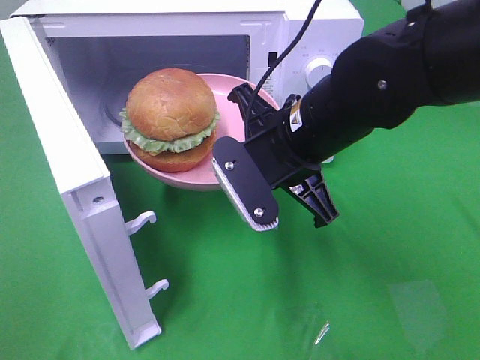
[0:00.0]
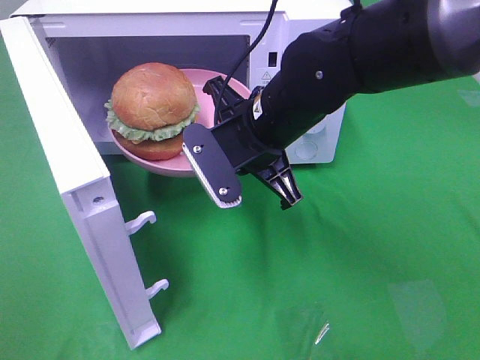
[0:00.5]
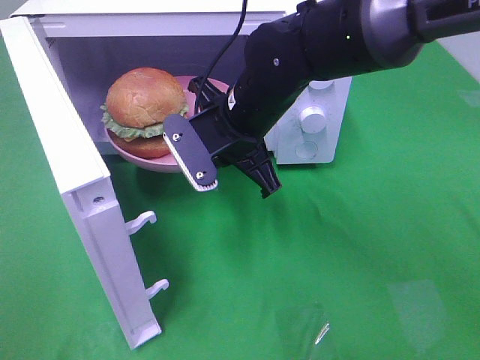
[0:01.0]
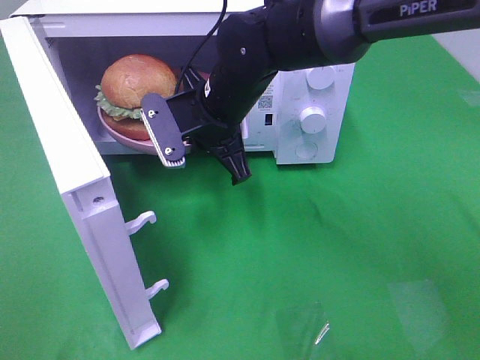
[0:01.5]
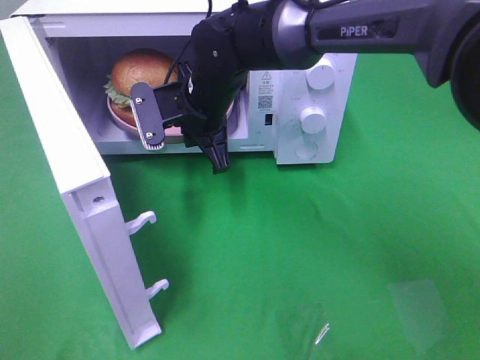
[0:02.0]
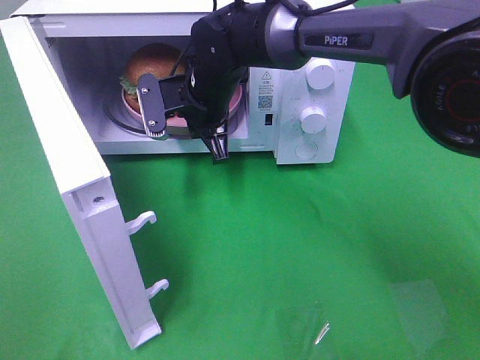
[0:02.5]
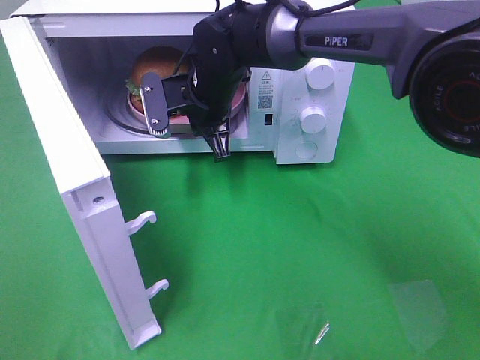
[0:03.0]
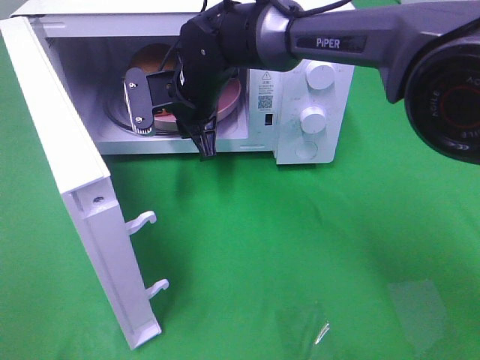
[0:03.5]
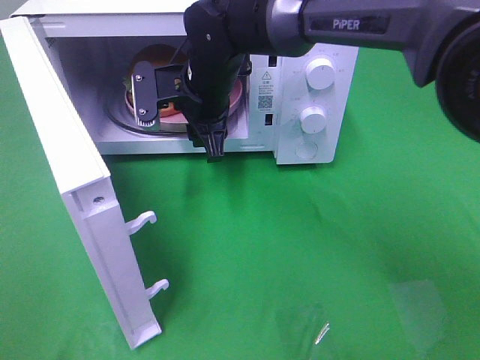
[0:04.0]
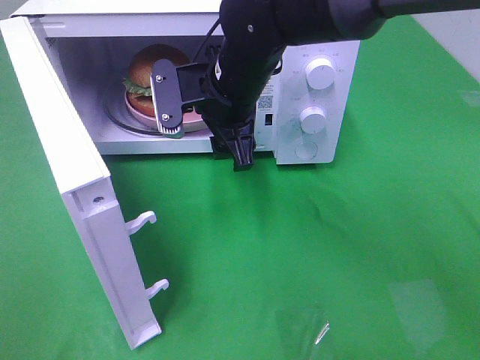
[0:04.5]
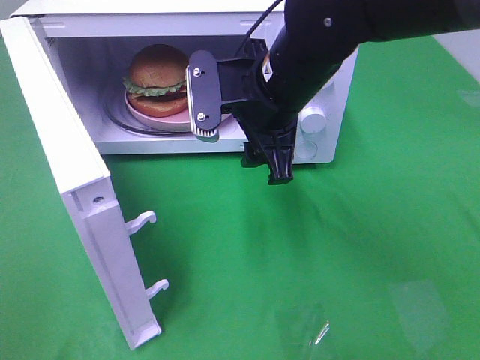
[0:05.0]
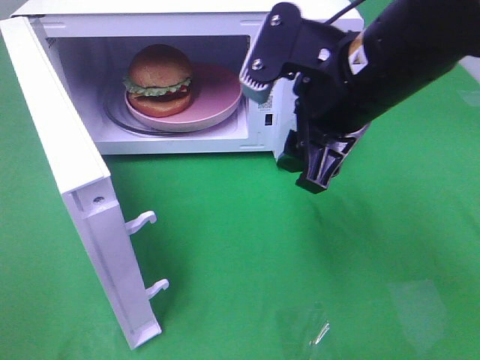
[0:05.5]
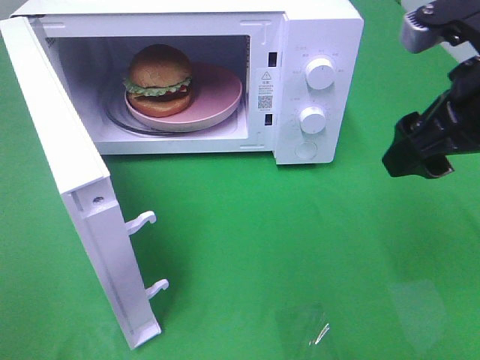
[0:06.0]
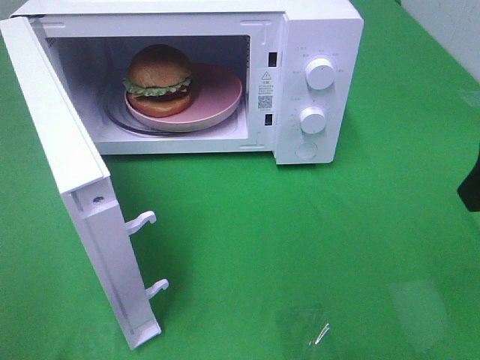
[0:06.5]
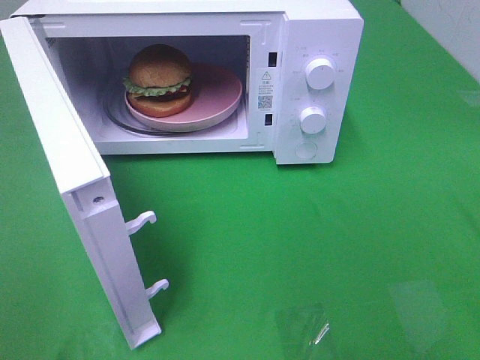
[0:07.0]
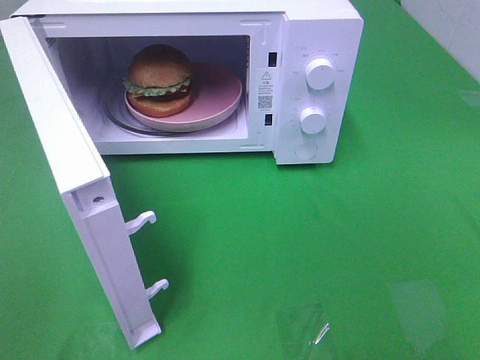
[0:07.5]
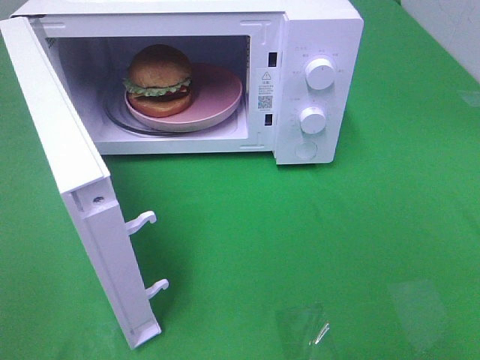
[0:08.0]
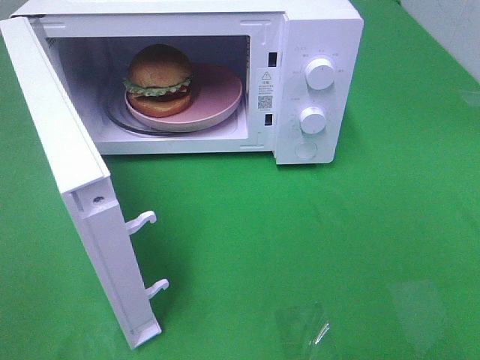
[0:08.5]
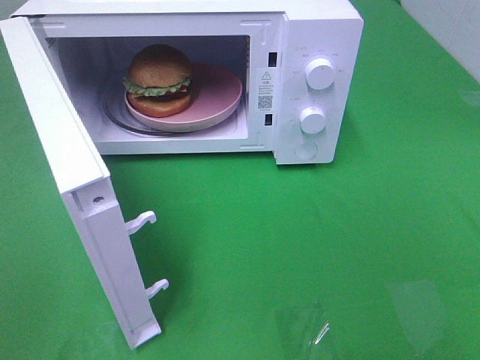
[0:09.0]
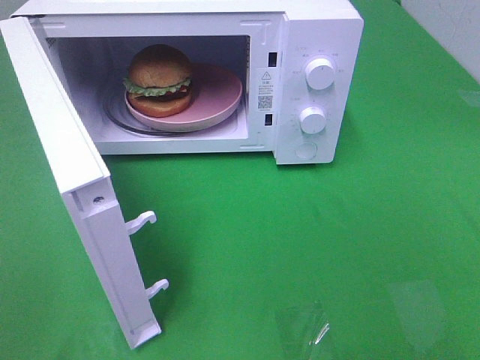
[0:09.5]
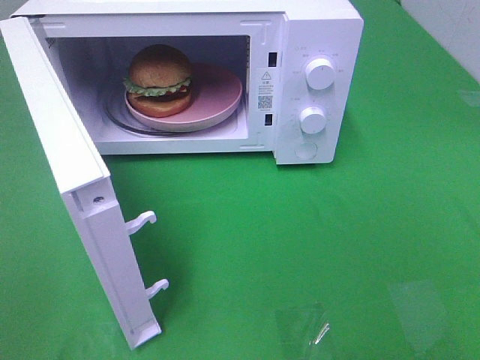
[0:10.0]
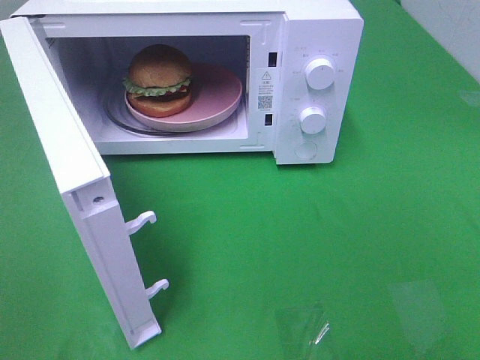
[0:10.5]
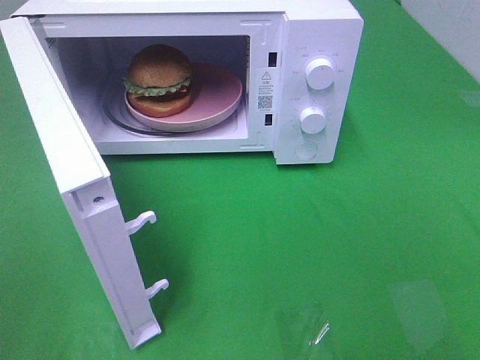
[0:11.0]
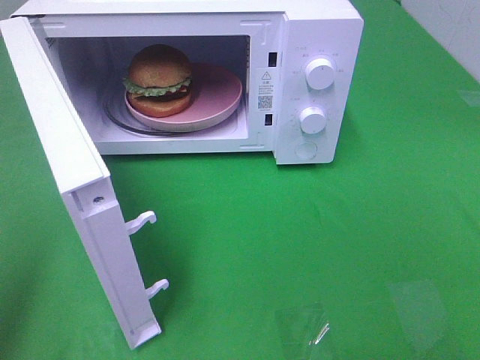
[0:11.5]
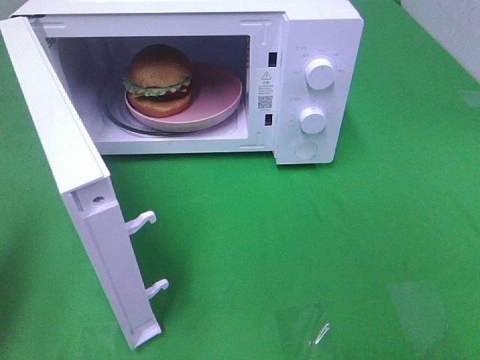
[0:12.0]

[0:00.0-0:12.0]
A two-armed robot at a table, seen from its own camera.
Task of the whole recording: Heat the burger.
Step, 0.0 to 3.0 s: Right hand: place the plate in the microwave.
0.0 to 2.0 s: The right gripper moves forward and to the left, about 15 cm.
2.0 to 4.0 s: The right gripper opens up.
4.0 to 6.0 s: The right gripper is displaced to the right, backward and upward by approximately 30 cm.
6.0 to 8.0 s: The right gripper moves backward, roughly 20 cm.
10.0 to 12.0 s: The left gripper heads forward, covering approximately 15 cm, and closes its fingers.

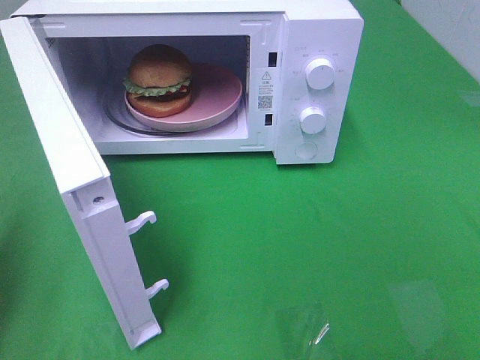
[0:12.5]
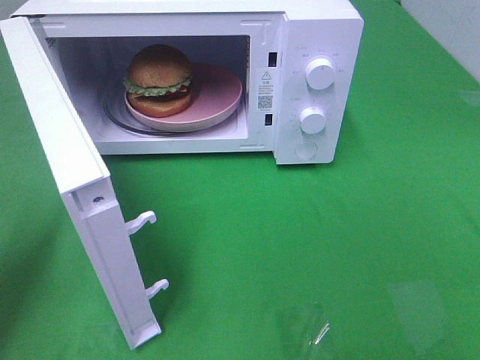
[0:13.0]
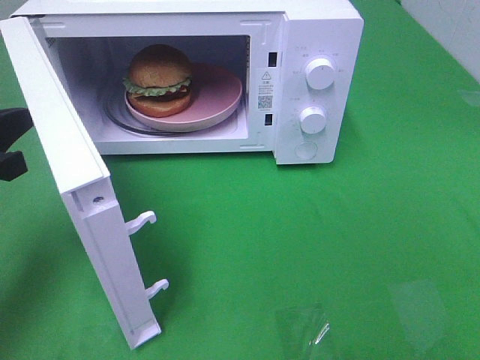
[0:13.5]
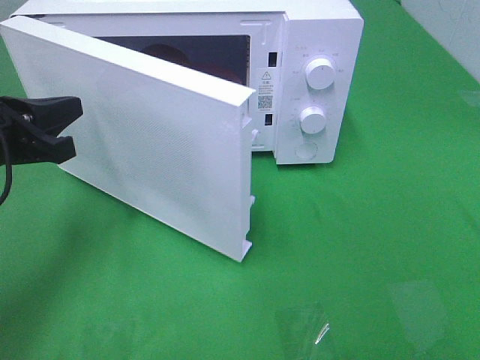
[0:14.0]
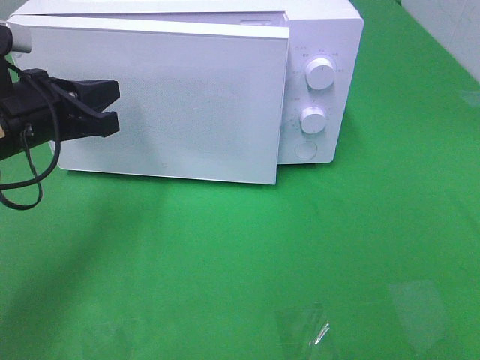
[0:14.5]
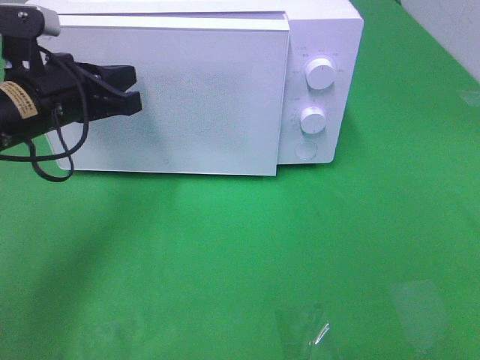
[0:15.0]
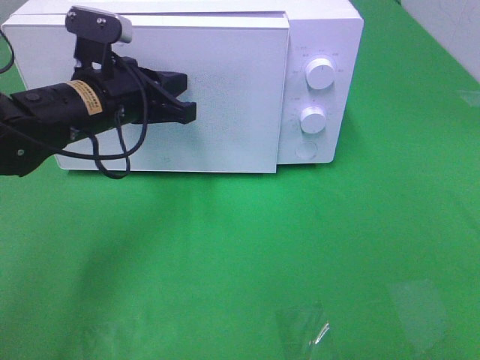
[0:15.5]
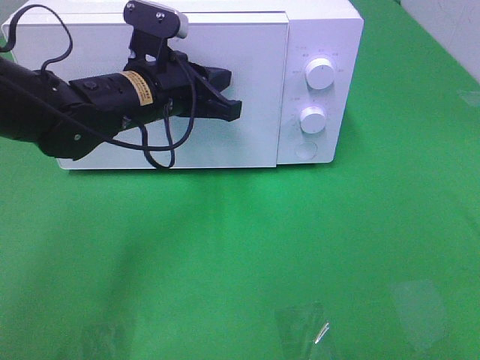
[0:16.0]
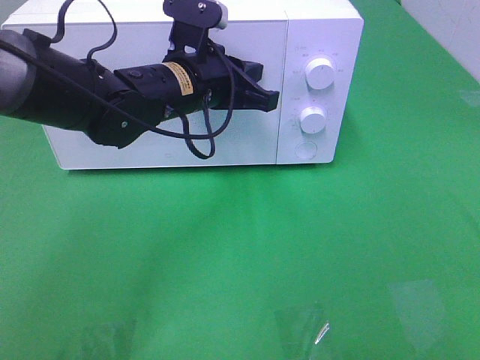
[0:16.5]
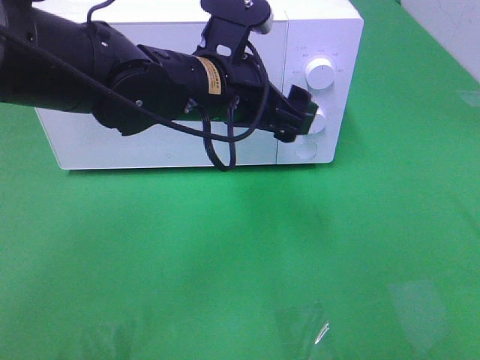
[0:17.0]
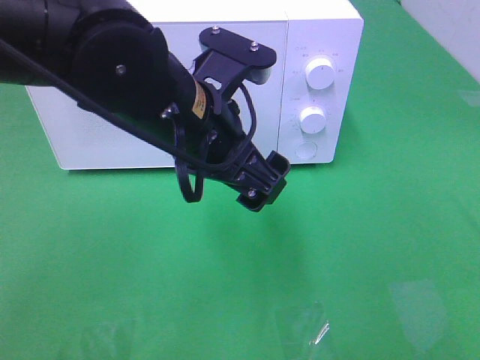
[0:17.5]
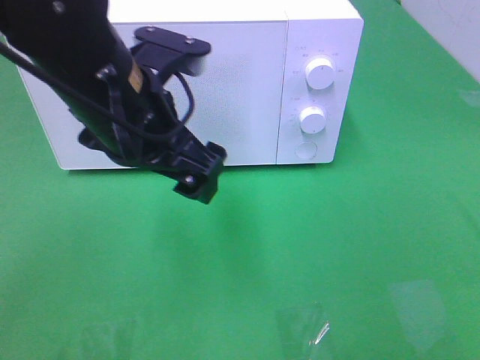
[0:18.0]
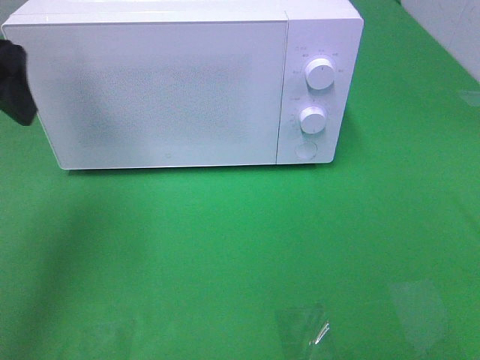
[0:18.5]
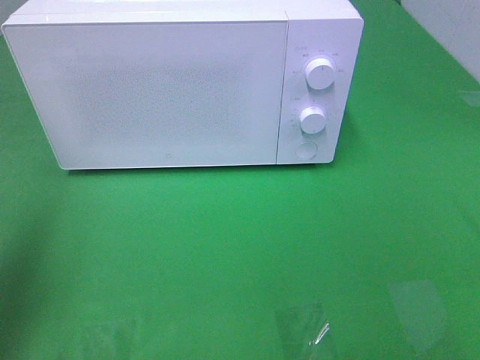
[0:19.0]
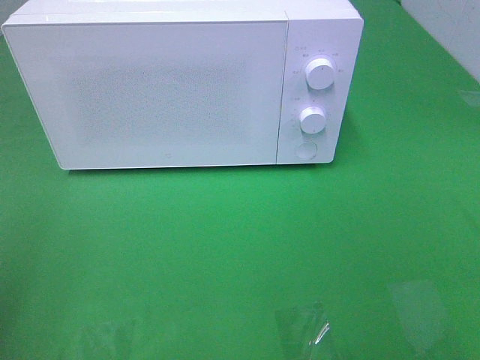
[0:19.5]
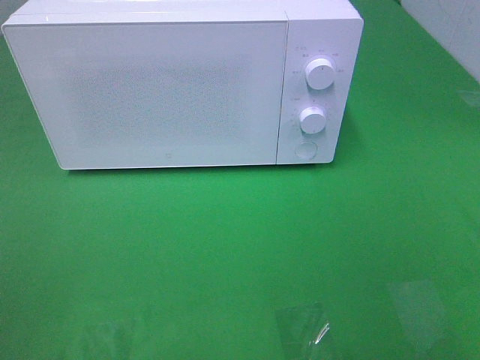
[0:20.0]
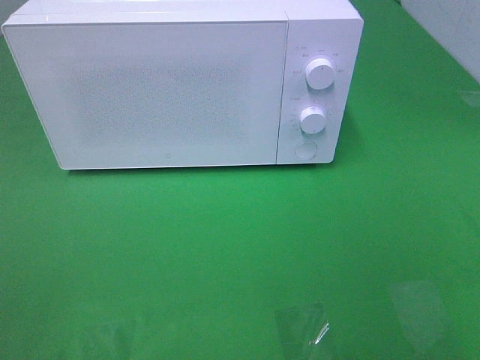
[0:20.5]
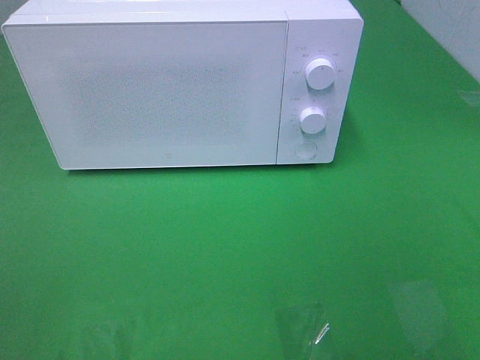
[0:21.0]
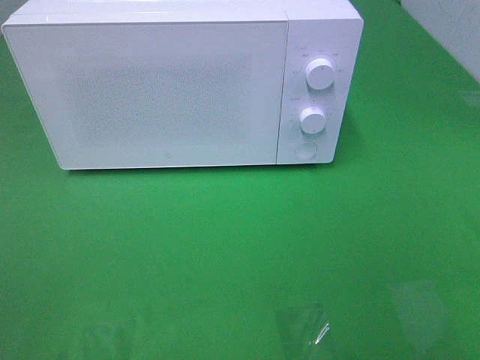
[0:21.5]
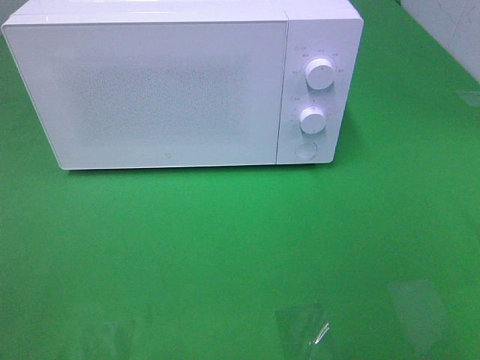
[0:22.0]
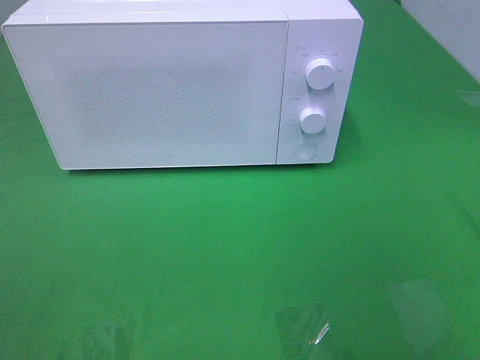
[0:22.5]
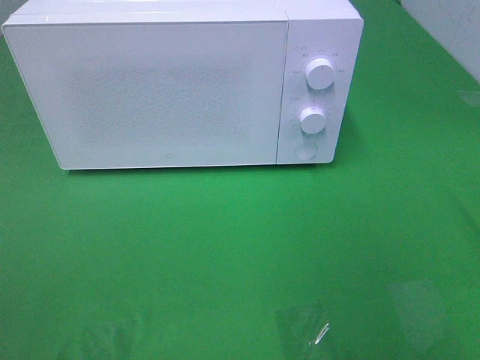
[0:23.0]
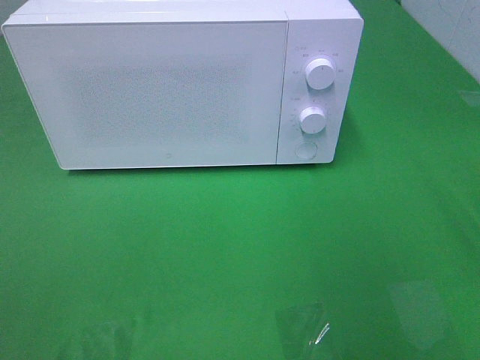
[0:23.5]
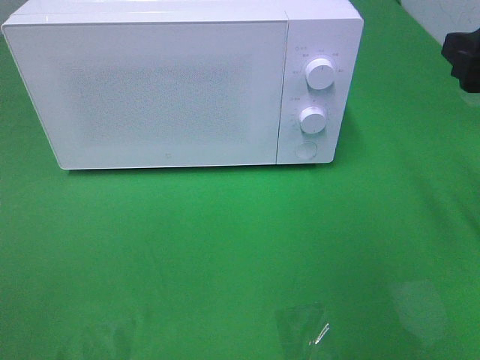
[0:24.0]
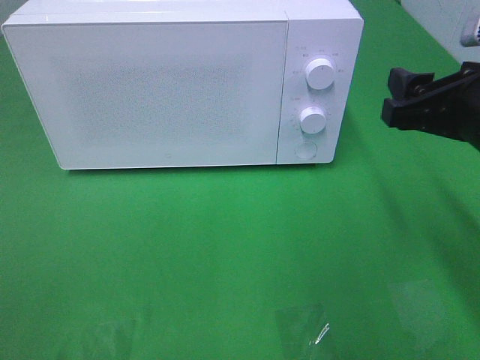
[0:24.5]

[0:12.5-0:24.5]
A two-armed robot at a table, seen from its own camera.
Task of the whole recording: Heat the burger.
Step, 12.5 to 16.5 s: Left hand: close the microwave door.
12.5 to 14.5 s: The left gripper shifts roughly 15 cm to the right and forward.
14.5 to 16.5 s: The left gripper goes approximately 15 cm to the right.
16.5 to 18.5 s: The left gripper is displaced to the left, upward and backward by approximately 25 cm, and opens its fingers.
18.5 to 20.5 s: The left gripper is displaced backward by about 30 cm.
22.5 to 24.5 s: The right gripper travels forward, downward and to the left by approximately 20 cm.

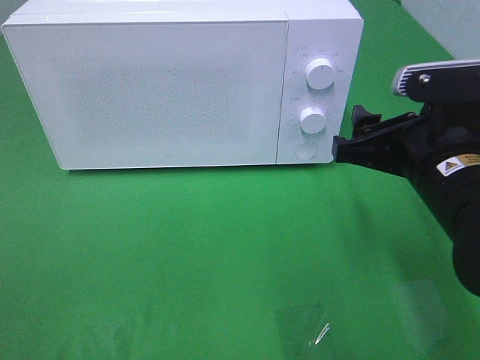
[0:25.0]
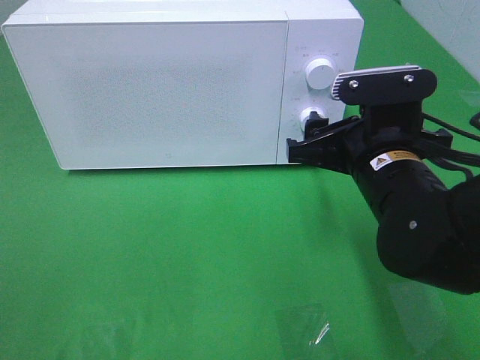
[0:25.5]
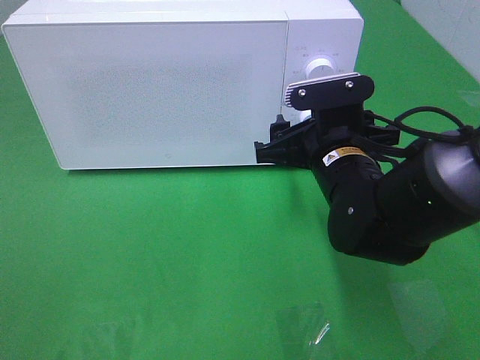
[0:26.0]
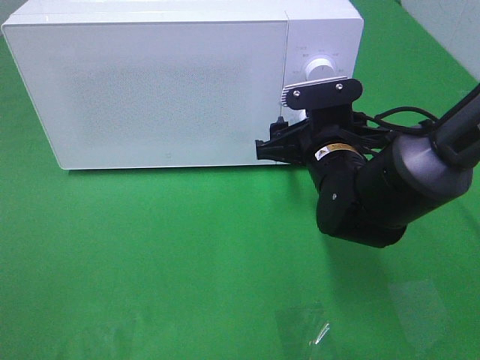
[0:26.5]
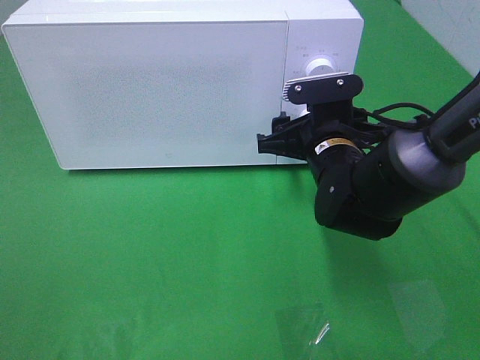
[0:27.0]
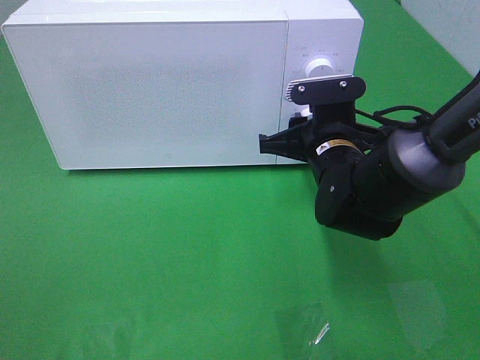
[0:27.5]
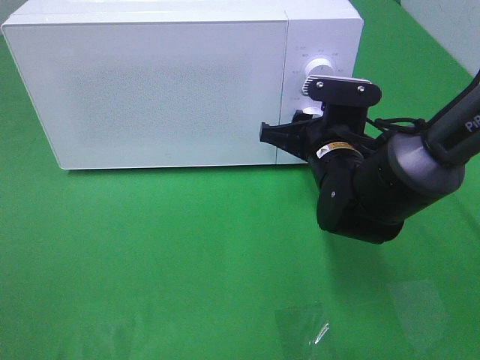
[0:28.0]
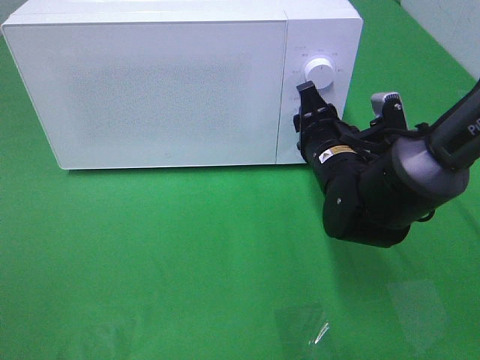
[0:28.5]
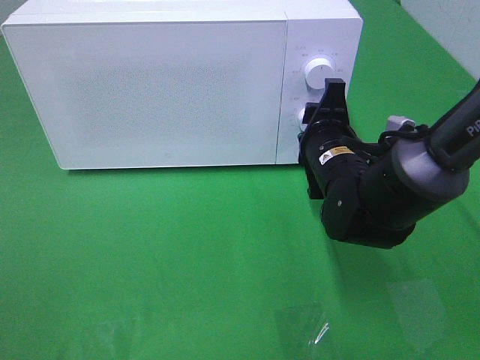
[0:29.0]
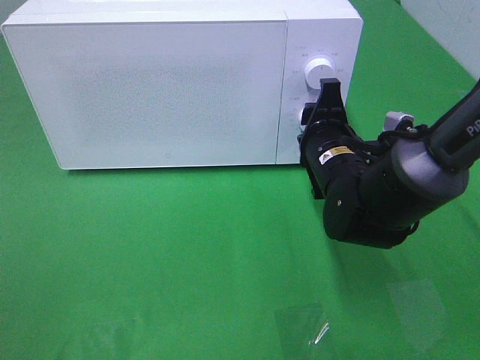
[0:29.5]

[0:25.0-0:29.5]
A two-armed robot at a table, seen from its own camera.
Task of the whole recording: Heat the burger.
25.0 to 27.0 s: The right gripper heads forward, downward and to the left, covering approximately 15 cm.
27.0 to 29.5 s: The right gripper closes its fingers.
